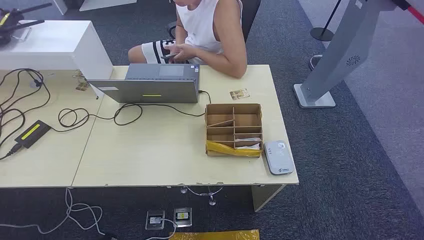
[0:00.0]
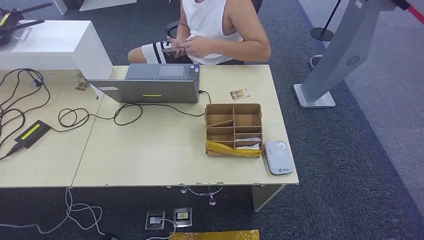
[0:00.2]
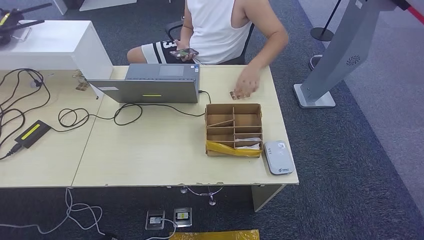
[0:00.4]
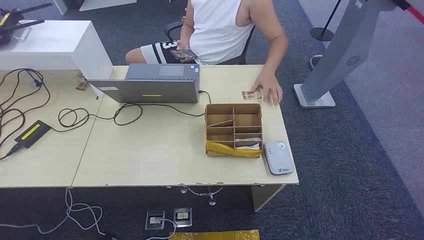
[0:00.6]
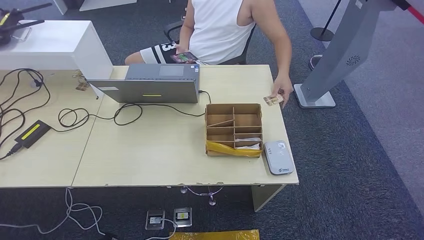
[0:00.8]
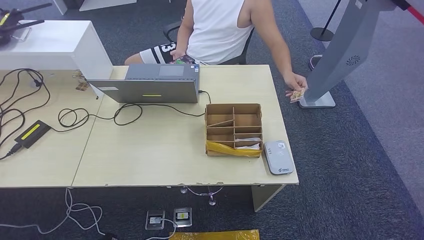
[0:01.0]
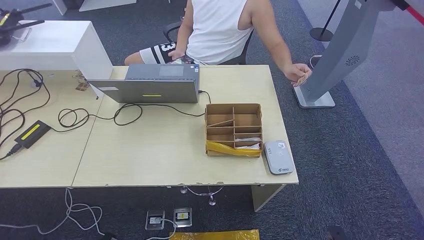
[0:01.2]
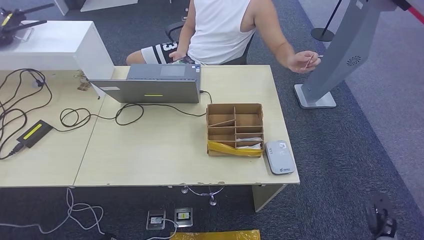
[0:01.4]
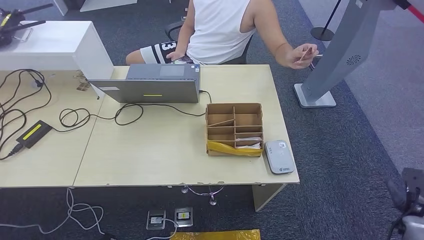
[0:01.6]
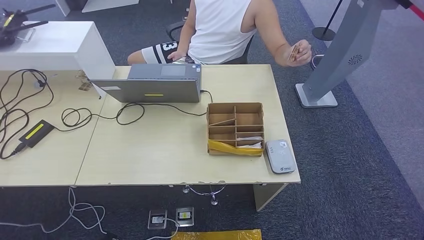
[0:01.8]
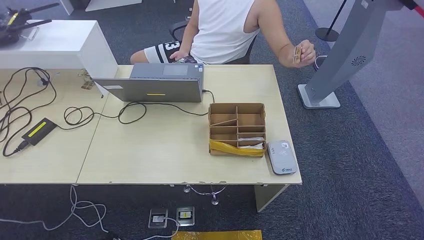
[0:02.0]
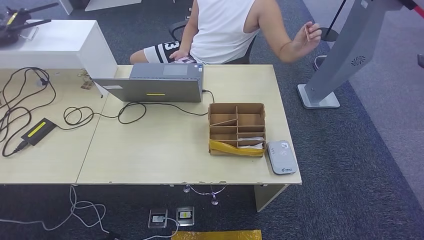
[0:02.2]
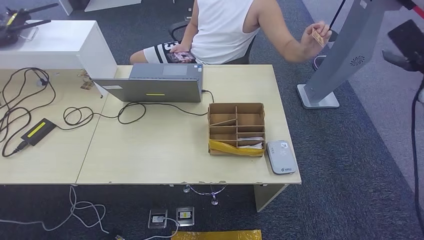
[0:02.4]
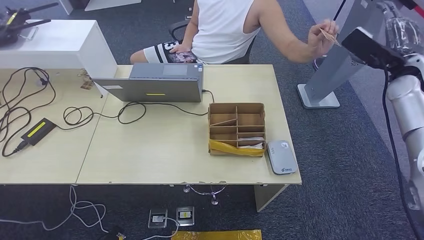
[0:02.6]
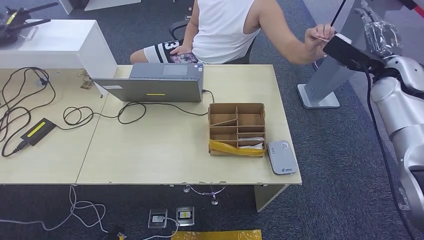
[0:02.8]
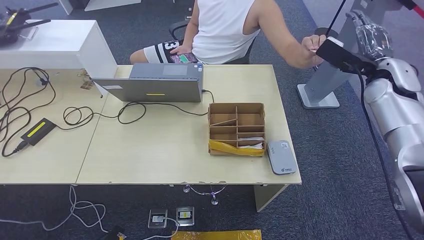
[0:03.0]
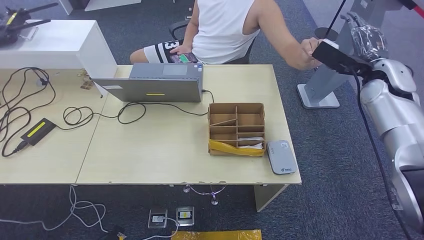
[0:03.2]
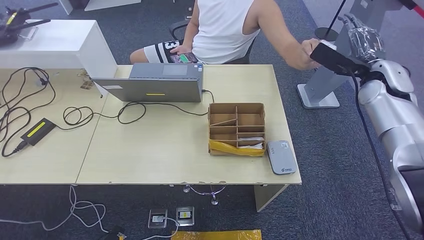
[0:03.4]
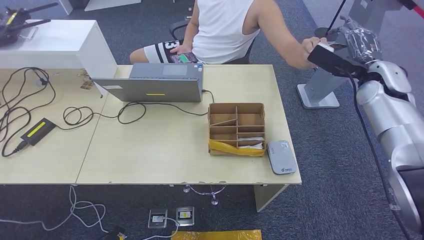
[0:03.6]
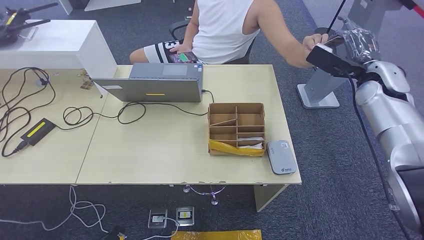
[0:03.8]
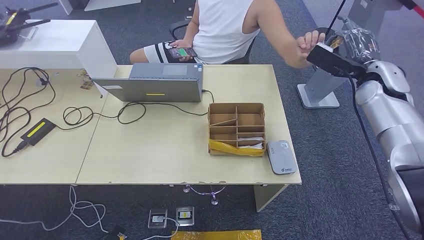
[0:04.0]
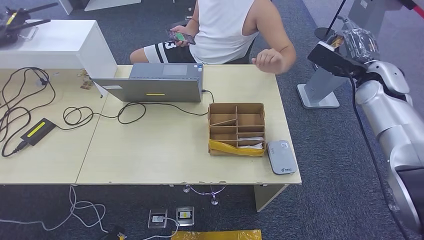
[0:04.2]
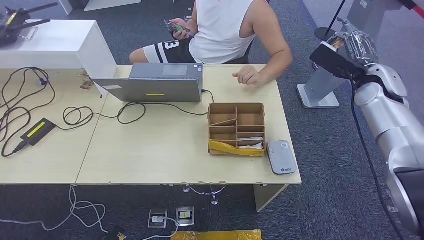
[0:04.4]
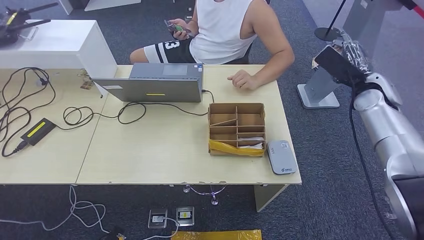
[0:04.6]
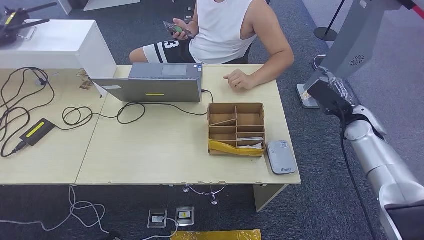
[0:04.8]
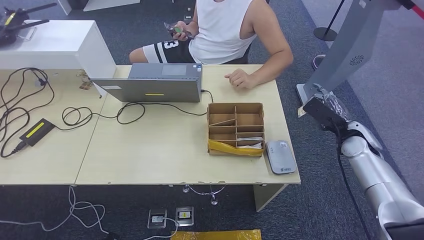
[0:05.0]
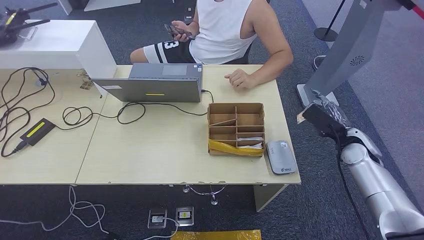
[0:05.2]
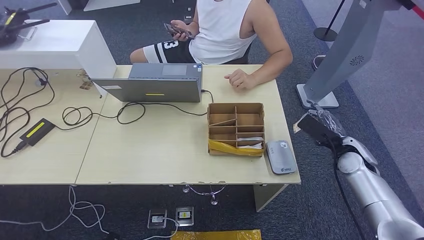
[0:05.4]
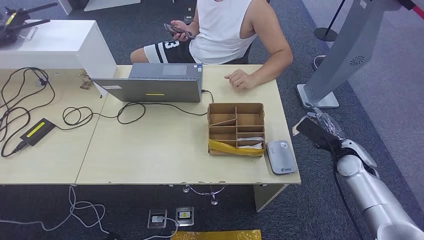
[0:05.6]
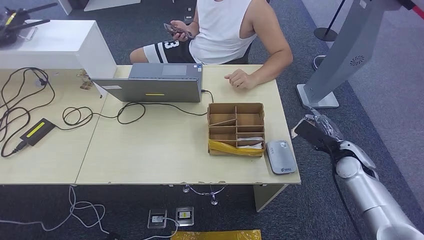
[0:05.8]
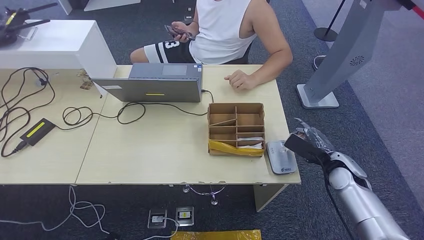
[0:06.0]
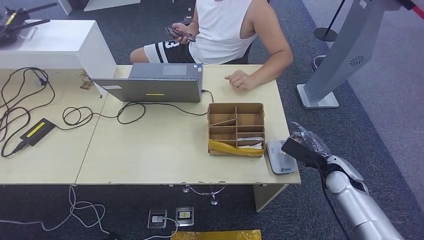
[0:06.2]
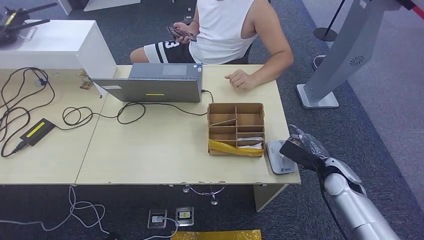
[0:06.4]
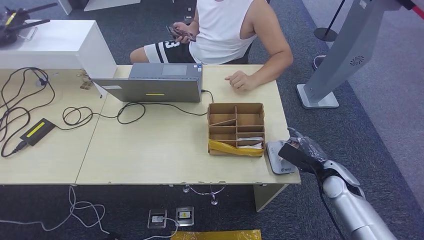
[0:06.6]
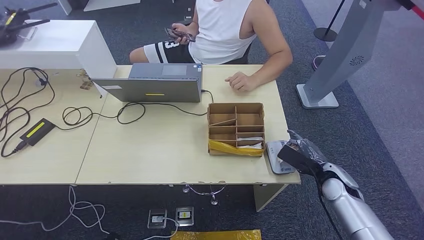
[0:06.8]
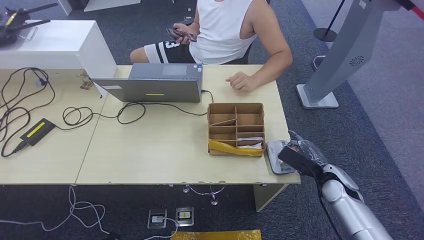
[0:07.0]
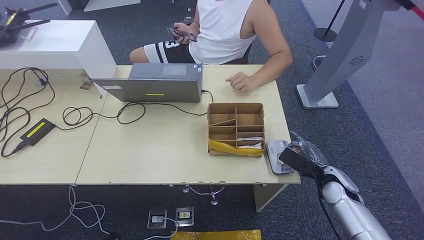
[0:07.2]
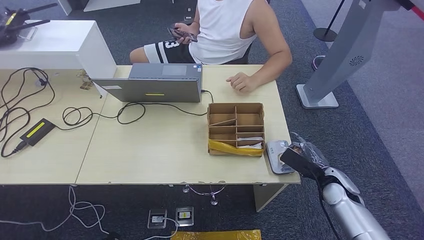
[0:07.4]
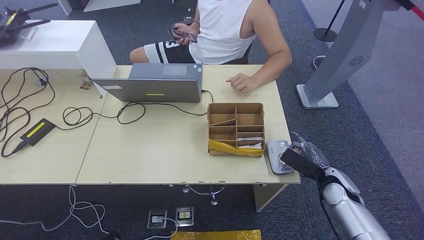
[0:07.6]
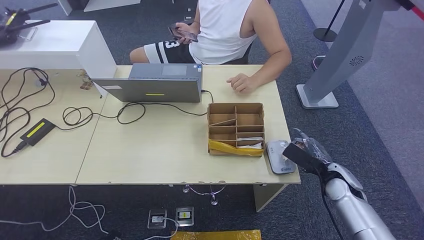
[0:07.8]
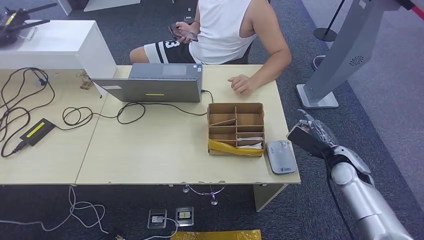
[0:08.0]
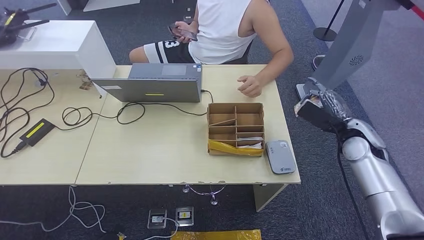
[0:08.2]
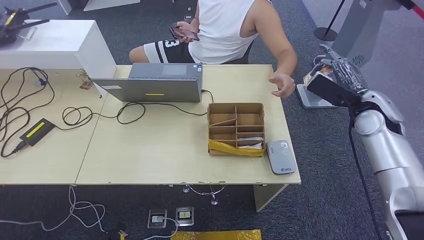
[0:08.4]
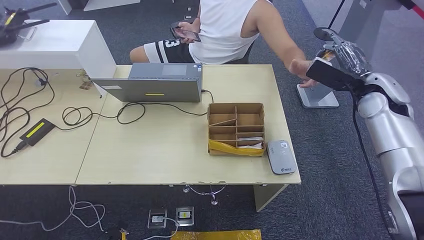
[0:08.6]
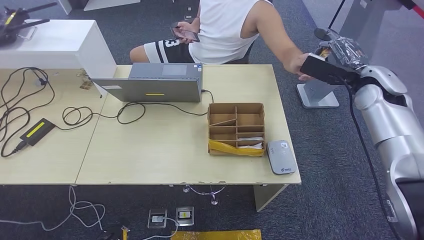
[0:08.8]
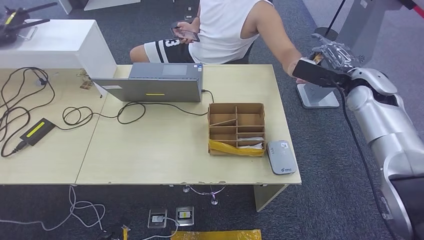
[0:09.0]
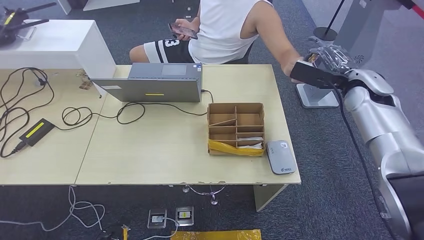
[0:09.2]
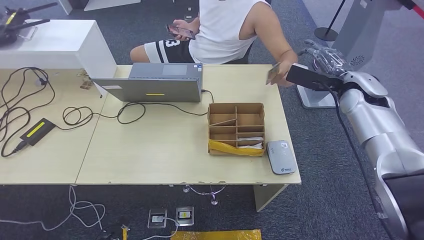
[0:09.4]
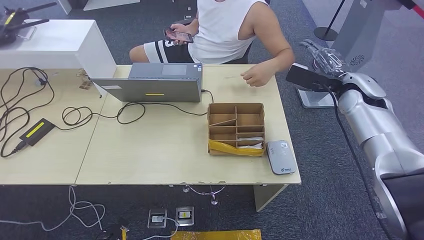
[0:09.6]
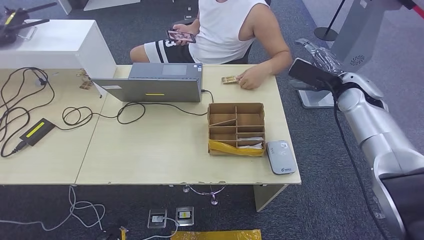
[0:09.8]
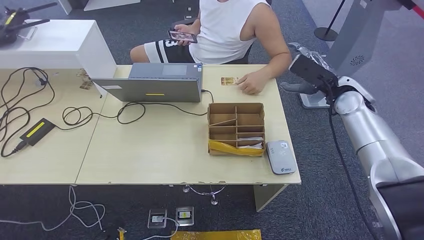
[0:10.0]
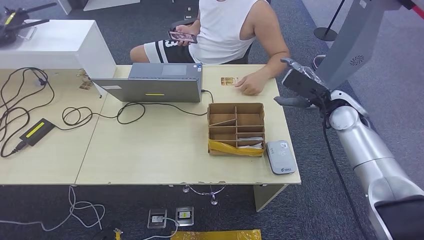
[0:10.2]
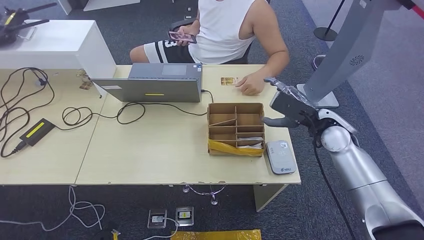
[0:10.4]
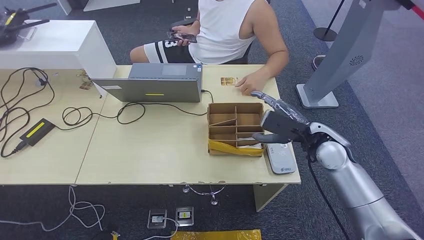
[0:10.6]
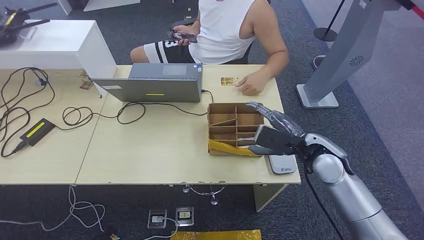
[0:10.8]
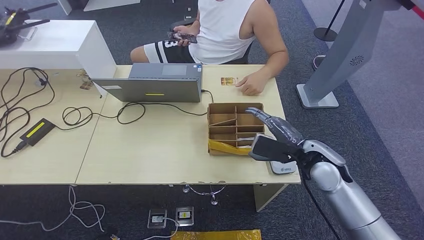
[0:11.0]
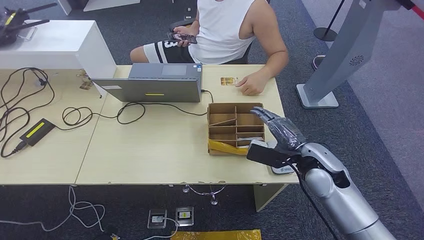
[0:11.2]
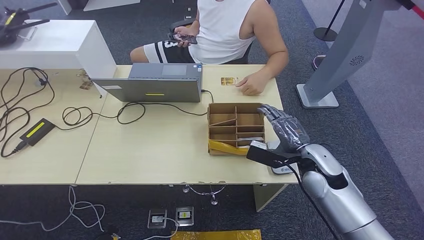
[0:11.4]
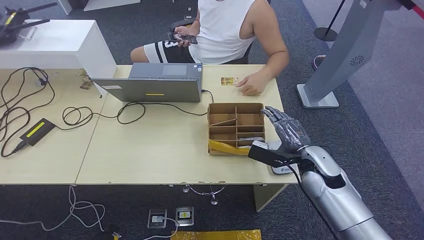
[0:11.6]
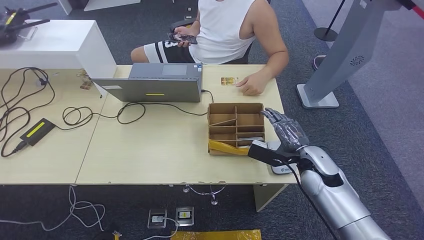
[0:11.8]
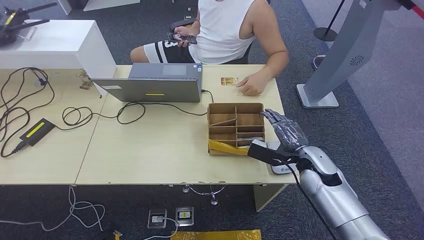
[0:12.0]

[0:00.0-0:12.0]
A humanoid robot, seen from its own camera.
Step, 0:00.0 to 0:05.0: Take the ID card from the person's hand.
Step, 0:05.2 to 0:07.0: Place the ID card on the card reader.
Step, 0:07.2 to 0:09.6: Hand the ID card to the person.
0:03.0 to 0:04.4: The hands stay close to where they were, moving slightly.
0:04.4 to 0:06.0: The right hand moves downward and backward, about 20 cm.
0:06.0 to 0:07.6: The right hand shifts by some 5 cm.
0:07.6 to 0:09.0: The right hand is displaced upward and forward by roughly 25 cm. Meanwhile the left hand shifts by roughly 5 cm.
0:09.0 to 0:10.4: The right hand moves downward, to the left and backward, about 10 cm.
0:10.4 to 0:12.0: The right hand shifts about 10 cm downward and backward.

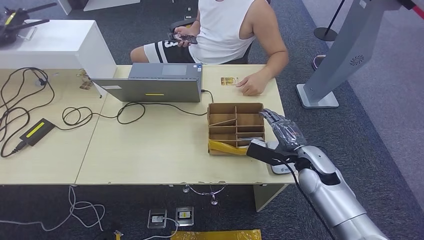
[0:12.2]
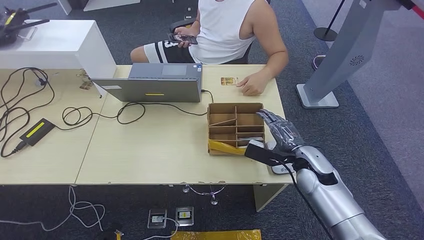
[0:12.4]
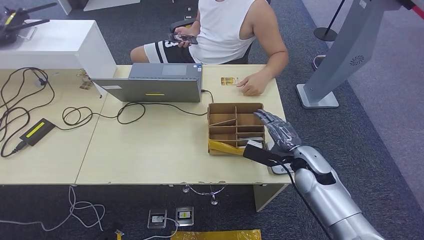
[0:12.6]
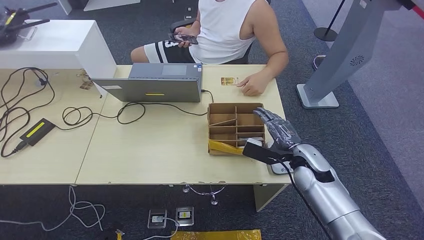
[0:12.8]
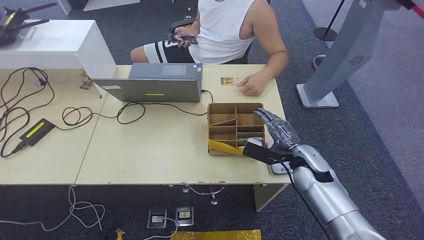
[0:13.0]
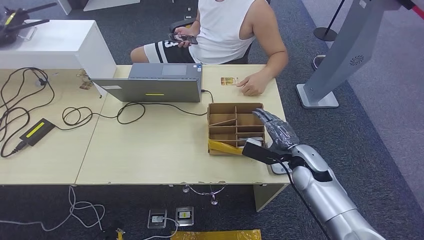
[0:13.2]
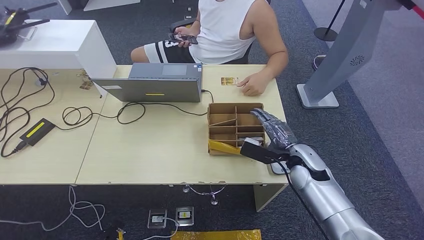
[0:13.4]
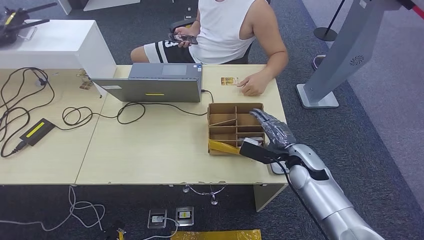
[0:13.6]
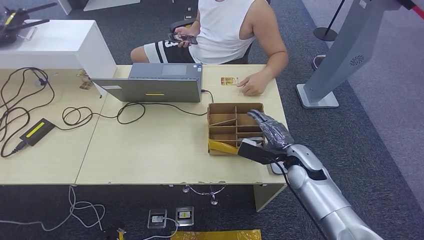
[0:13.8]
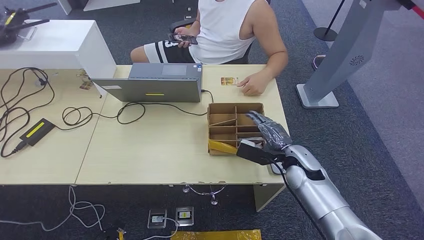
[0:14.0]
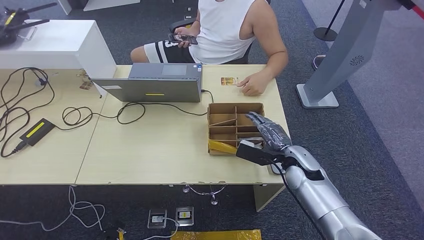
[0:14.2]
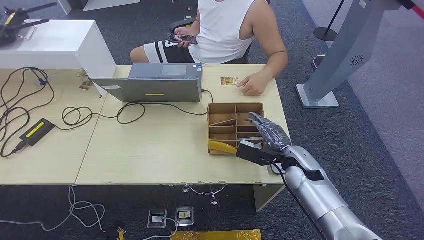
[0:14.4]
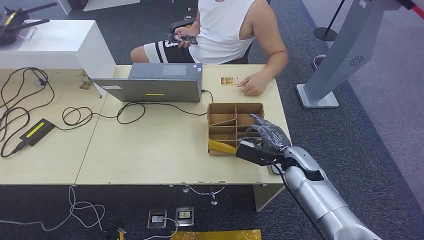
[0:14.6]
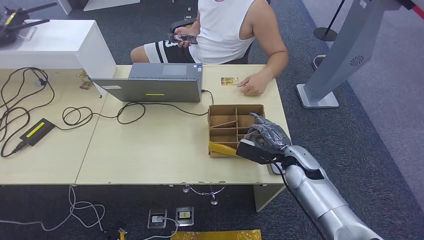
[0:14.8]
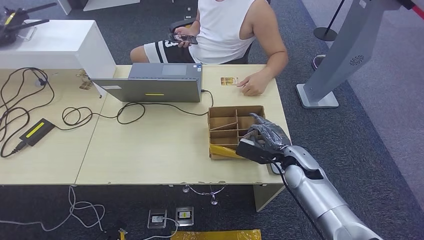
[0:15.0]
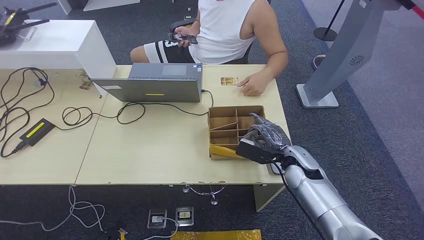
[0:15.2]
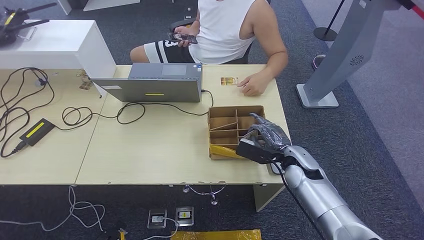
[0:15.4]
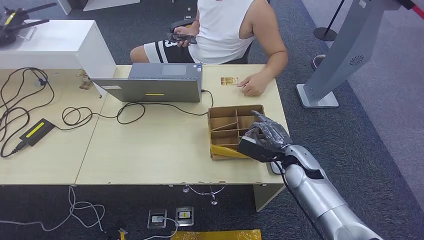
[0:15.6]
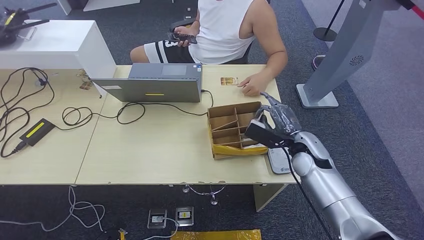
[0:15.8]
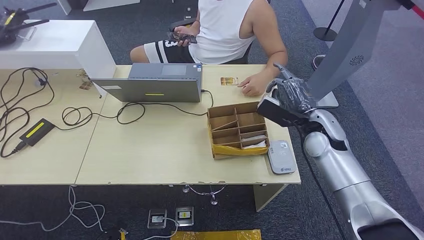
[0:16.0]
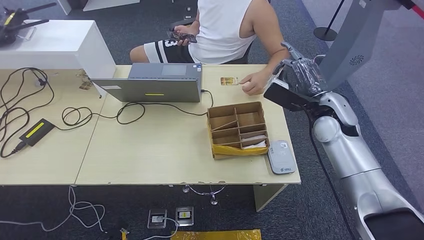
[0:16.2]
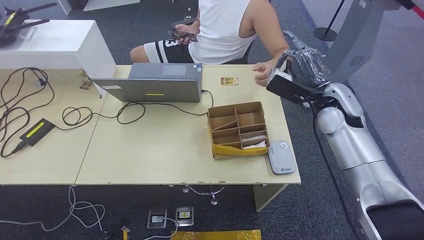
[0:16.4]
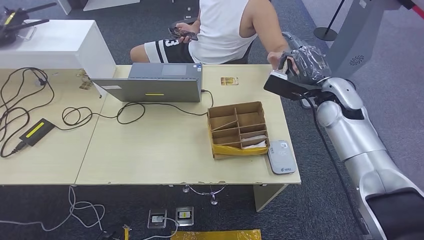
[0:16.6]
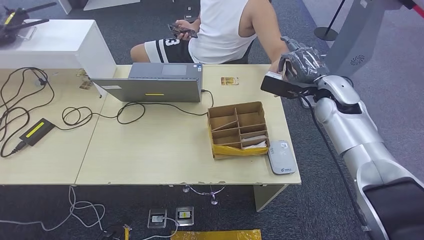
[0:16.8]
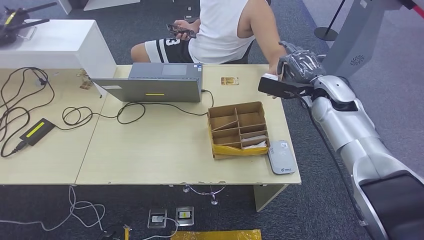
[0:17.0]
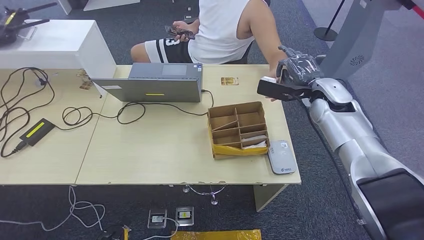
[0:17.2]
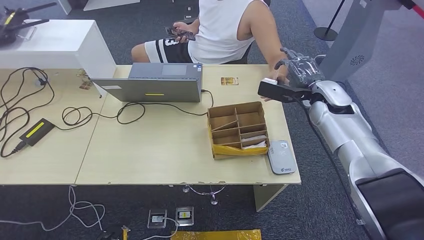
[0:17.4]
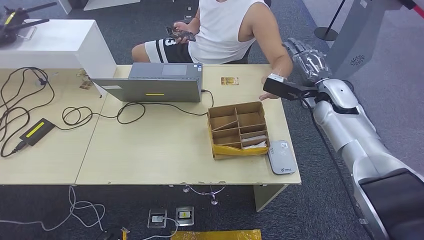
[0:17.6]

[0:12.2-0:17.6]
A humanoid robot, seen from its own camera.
Step, 0:12.2 to 0:15.6: Pick up the room key from the key card box.
Step, 0:15.8 to 0:17.6: Hand the room key to the person.
0:12.2 to 0:15.0: There are only small adjustments of the hands.
0:15.0 to 0:16.2: The right hand is displaced upward by about 15 cm.
